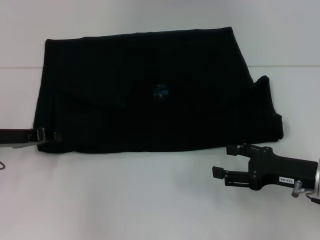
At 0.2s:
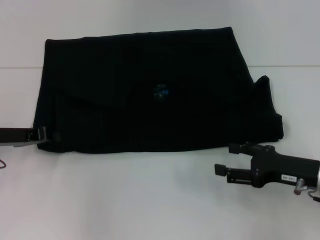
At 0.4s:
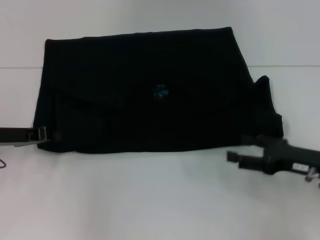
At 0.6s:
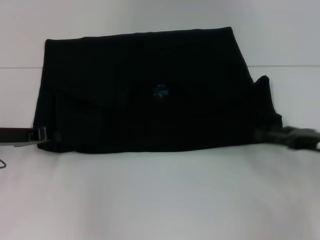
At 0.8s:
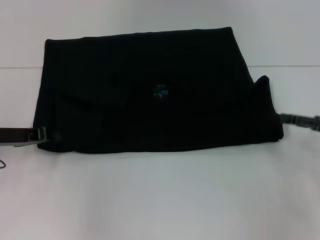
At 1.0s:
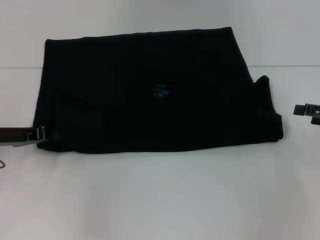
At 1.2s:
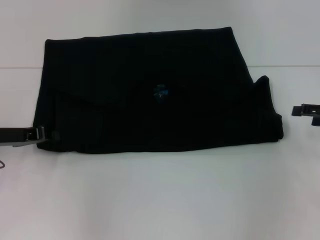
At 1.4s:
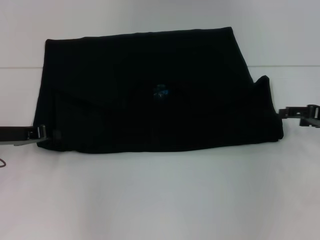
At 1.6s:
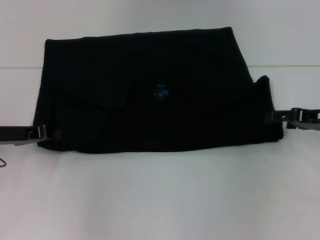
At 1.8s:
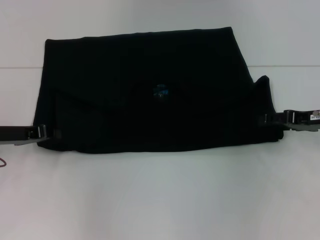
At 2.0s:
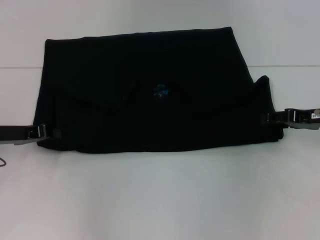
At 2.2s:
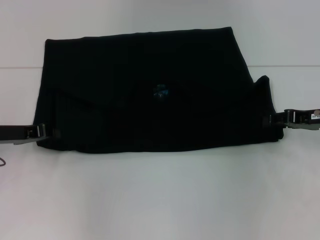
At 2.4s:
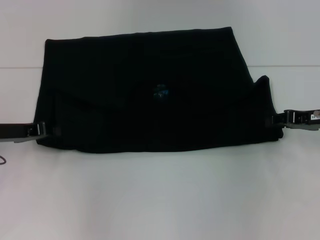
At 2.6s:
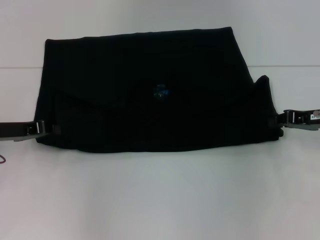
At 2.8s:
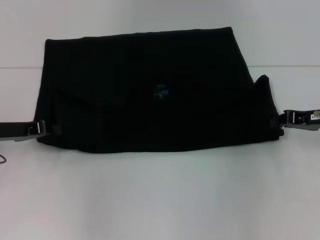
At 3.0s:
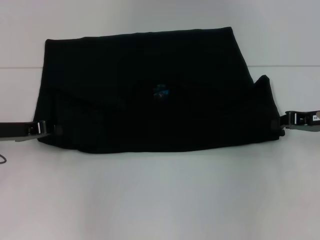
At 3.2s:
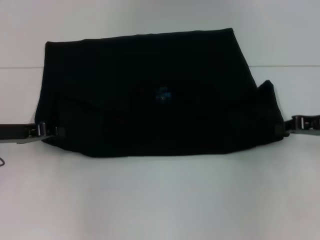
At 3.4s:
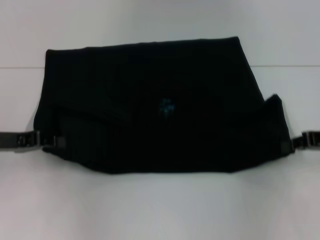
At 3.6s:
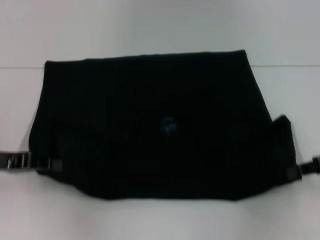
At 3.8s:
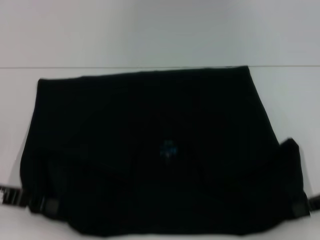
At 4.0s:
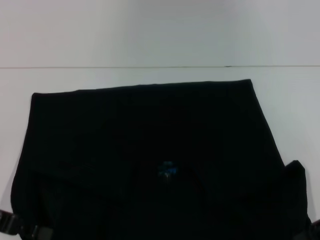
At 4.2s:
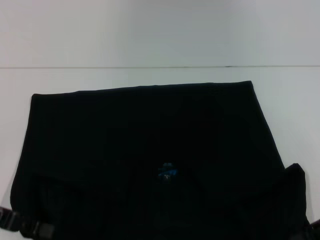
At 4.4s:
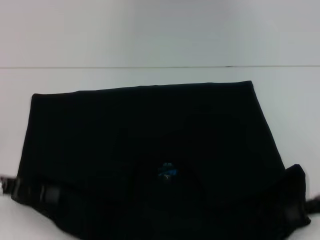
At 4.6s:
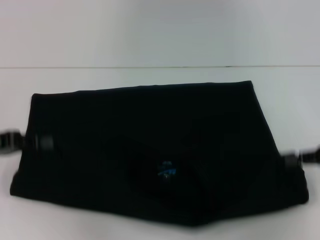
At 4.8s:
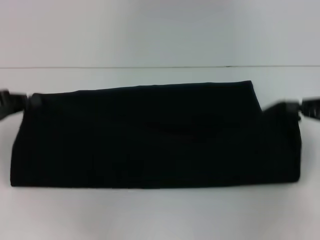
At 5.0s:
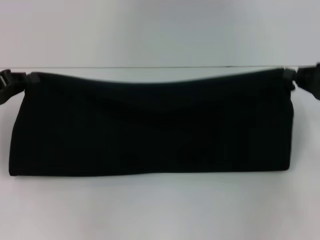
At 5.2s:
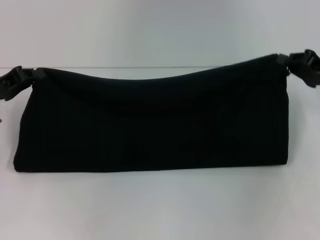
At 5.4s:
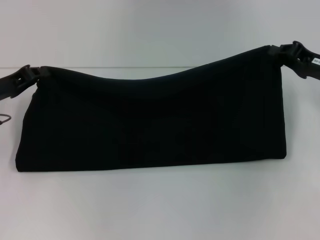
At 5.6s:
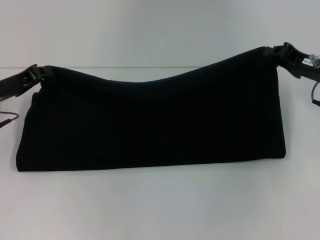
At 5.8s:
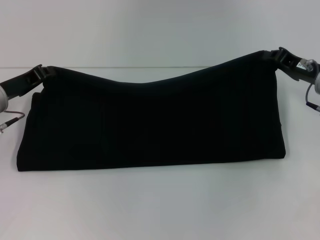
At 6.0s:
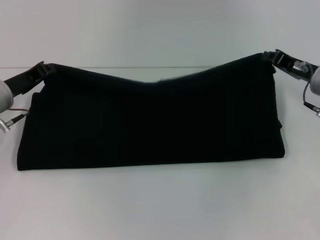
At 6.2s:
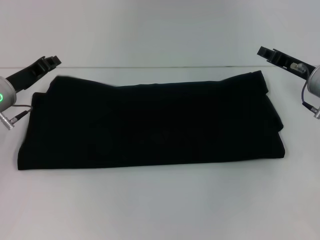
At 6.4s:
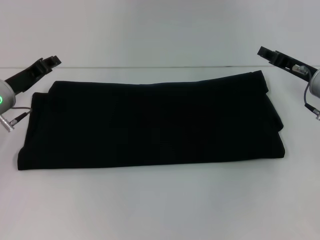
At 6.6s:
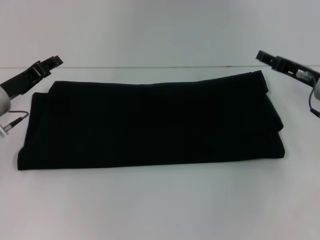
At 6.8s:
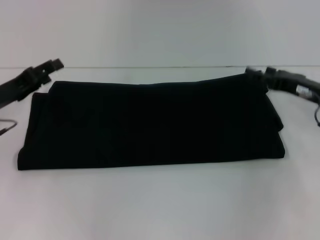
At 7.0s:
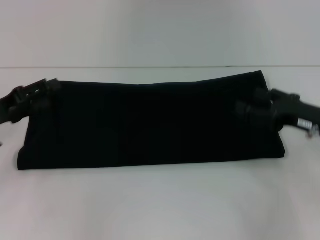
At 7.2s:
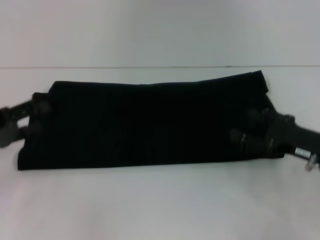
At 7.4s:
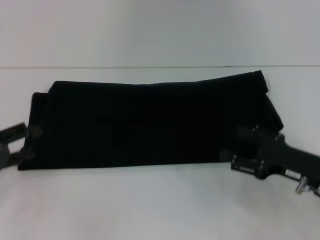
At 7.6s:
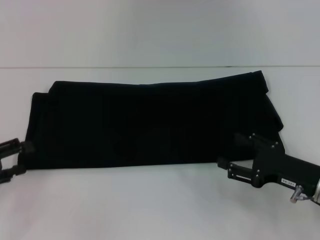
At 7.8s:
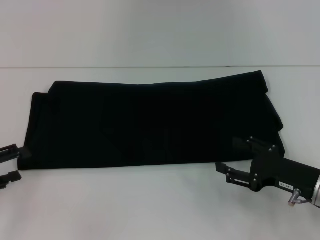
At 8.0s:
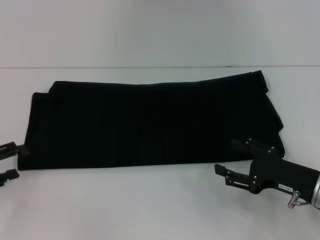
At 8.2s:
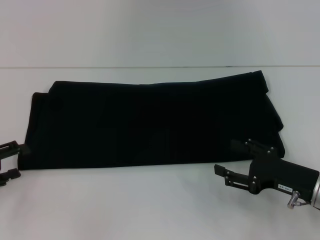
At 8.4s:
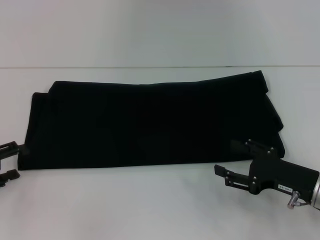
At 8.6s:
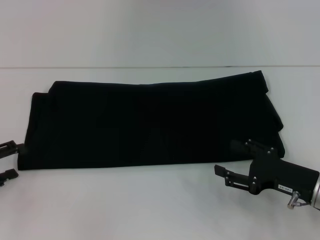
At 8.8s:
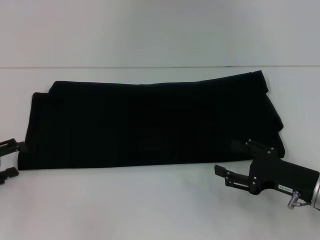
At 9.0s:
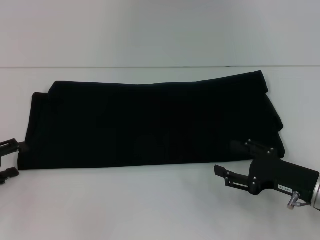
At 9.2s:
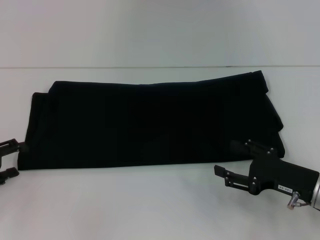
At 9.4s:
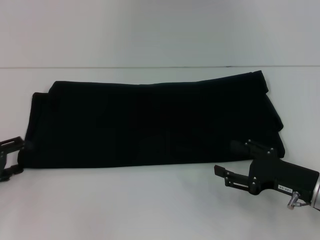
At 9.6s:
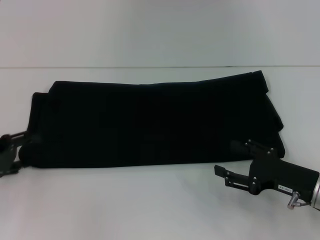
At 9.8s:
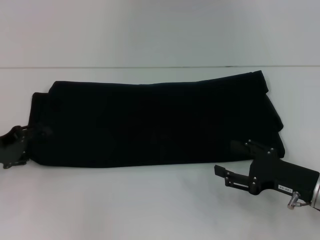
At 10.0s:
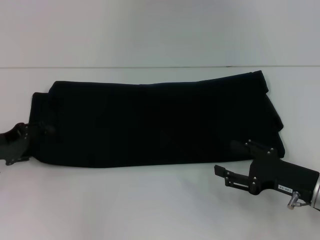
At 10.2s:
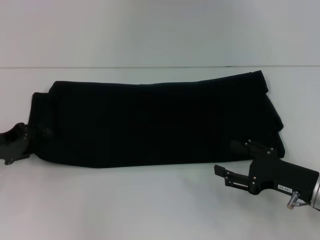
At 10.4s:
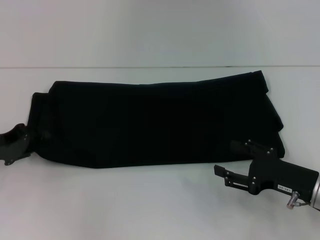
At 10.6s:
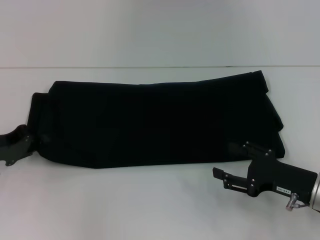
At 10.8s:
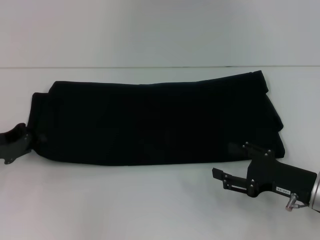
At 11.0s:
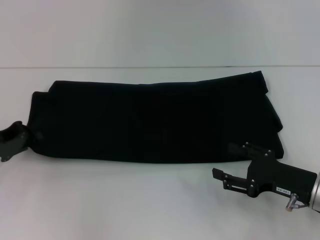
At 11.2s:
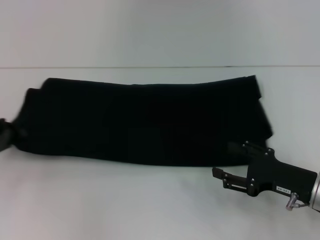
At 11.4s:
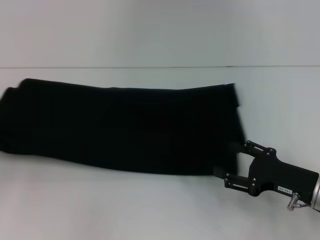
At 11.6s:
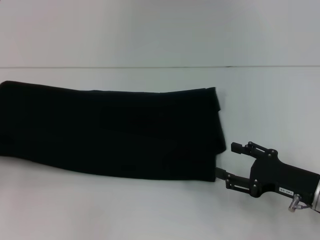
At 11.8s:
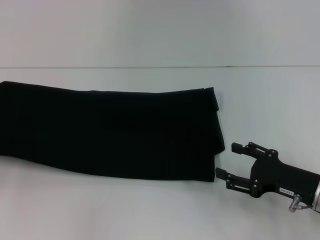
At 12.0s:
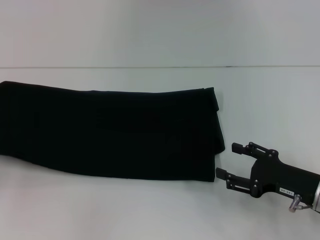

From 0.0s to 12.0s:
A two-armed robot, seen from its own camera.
Step, from 0.0s to 4.0s: Pull the clothes with your left hand.
Step, from 0.0s to 4.0s: Pull the clothes with your right hand.
Step, from 4.2s to 6.6s: Fold the clothes with your right hand.
From 0.0s to 1.6s: The right gripper travels forward, to the right and upward by approximately 10 cm.
From 1.6s to 3.0s: The right gripper closes its fingers.
From 3.0s to 4.4s: The grippers both shift backward by roughly 10 cm.
From 4.4s to 6.0s: The right gripper shifts some 15 cm forward and to the left. The left gripper travels forward by approximately 10 cm.
From 6.0s to 7.6s: The right gripper shifts approximately 15 cm backward and downward, and opens its fingers, while the left gripper heads backward and to the left, covering roughly 15 cm, and opens up.
From 7.6s to 9.0s: The grippers move only a little.
From 9.0s to 10.4s: The left gripper moves about 5 cm.
From 10.4s to 12.0s: The left gripper goes about 10 cm to the left, and closes up.

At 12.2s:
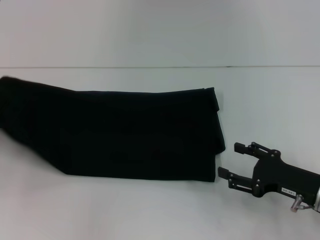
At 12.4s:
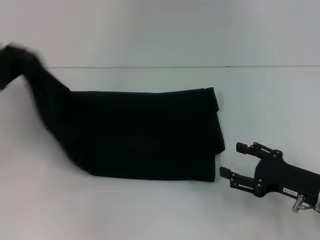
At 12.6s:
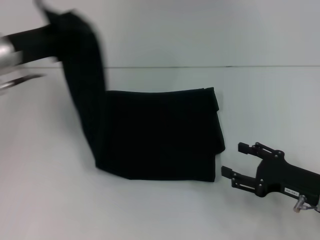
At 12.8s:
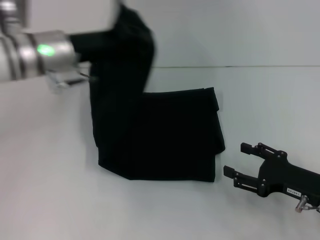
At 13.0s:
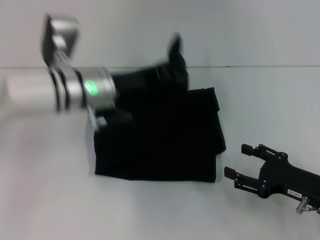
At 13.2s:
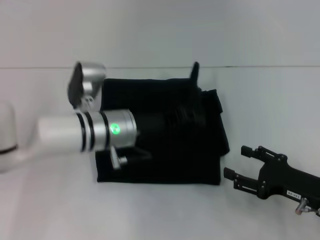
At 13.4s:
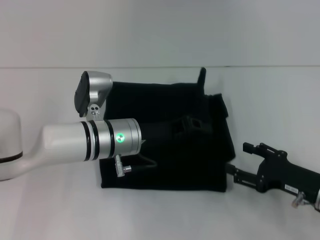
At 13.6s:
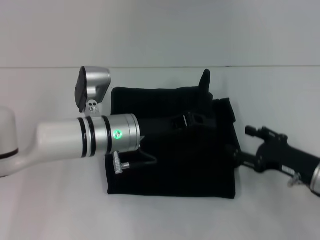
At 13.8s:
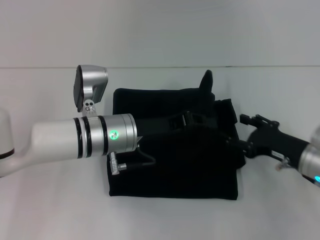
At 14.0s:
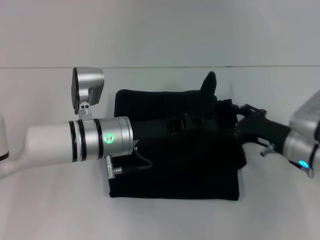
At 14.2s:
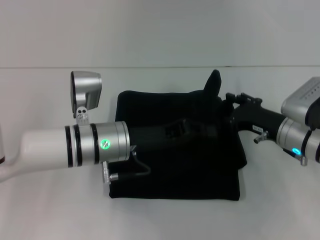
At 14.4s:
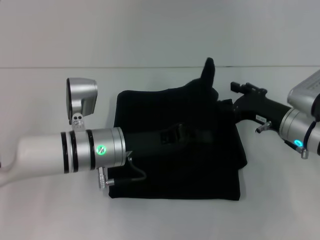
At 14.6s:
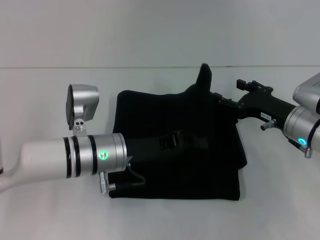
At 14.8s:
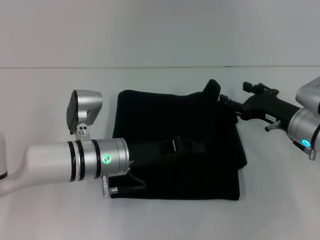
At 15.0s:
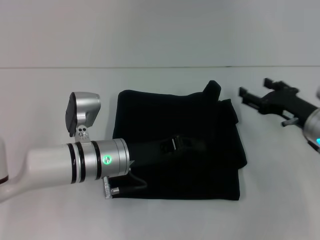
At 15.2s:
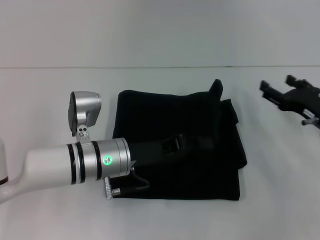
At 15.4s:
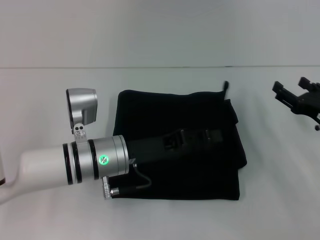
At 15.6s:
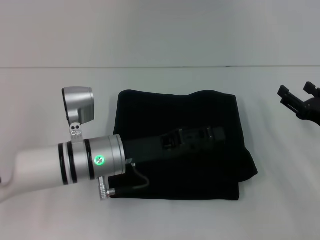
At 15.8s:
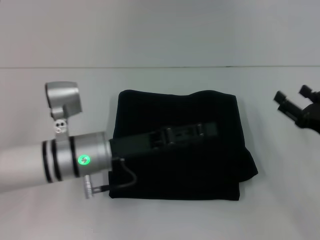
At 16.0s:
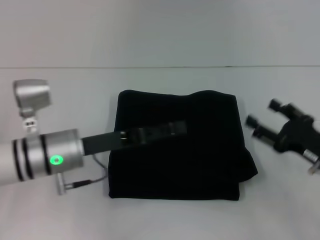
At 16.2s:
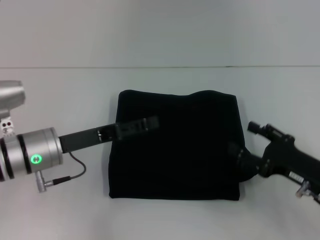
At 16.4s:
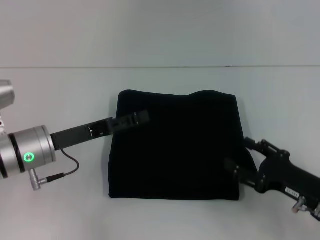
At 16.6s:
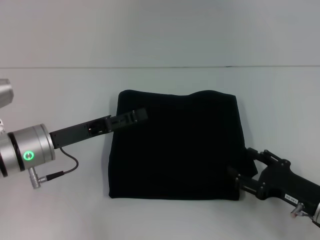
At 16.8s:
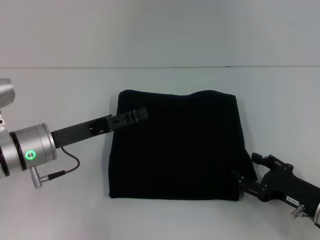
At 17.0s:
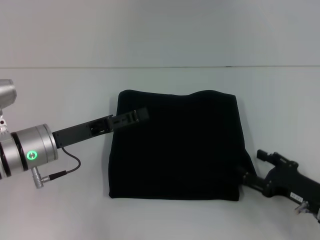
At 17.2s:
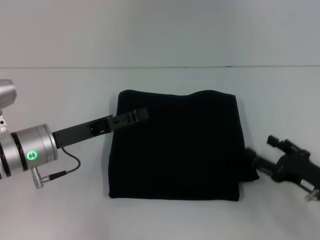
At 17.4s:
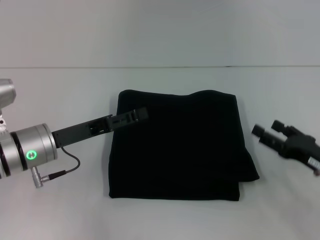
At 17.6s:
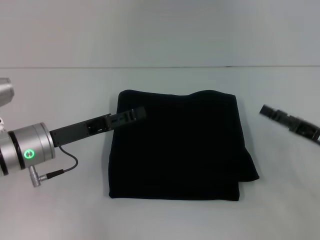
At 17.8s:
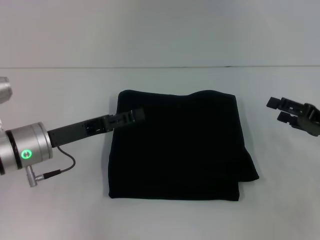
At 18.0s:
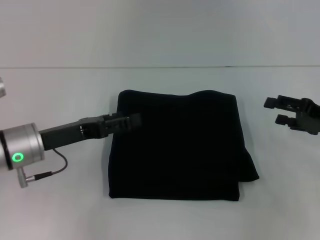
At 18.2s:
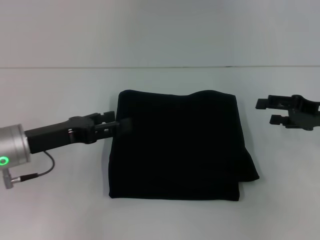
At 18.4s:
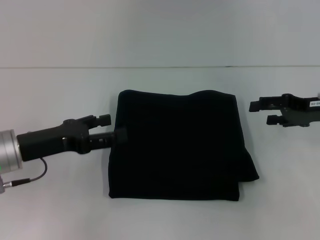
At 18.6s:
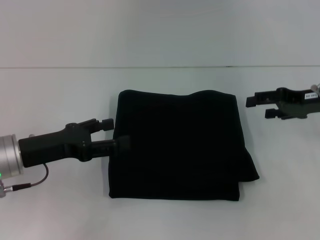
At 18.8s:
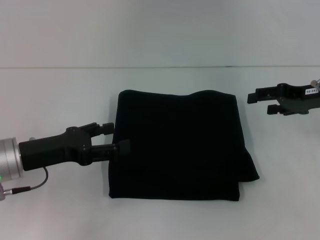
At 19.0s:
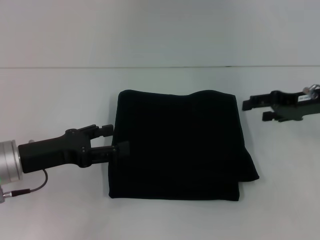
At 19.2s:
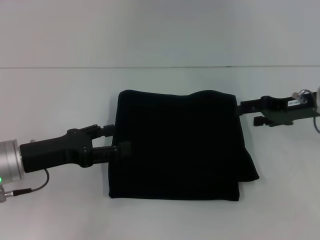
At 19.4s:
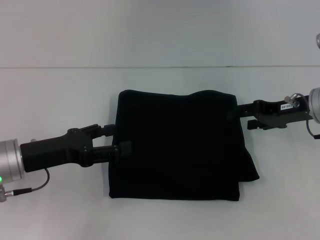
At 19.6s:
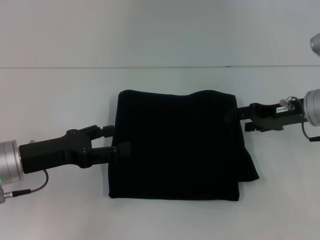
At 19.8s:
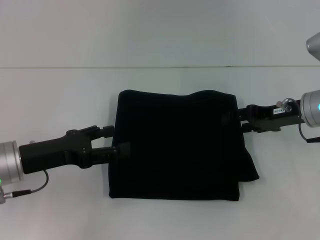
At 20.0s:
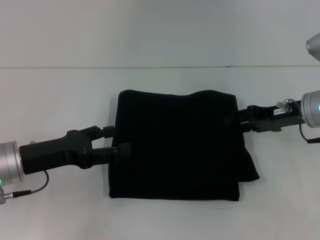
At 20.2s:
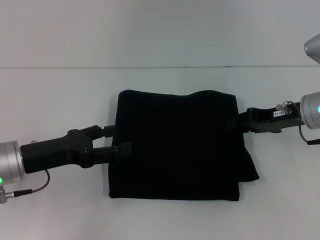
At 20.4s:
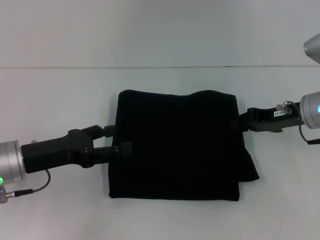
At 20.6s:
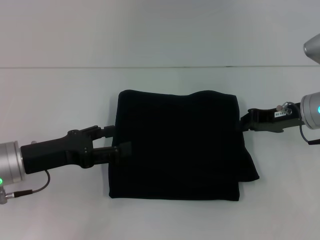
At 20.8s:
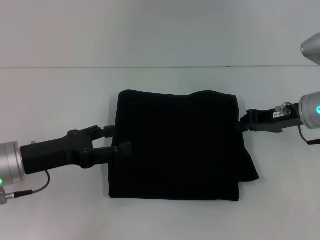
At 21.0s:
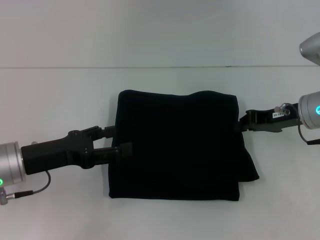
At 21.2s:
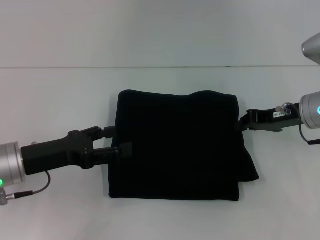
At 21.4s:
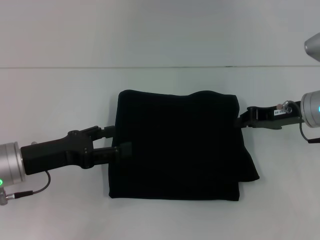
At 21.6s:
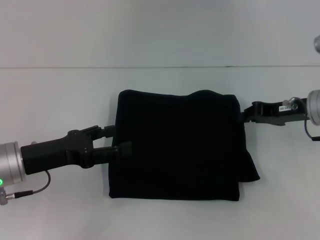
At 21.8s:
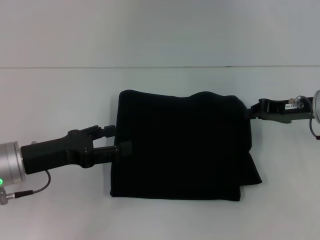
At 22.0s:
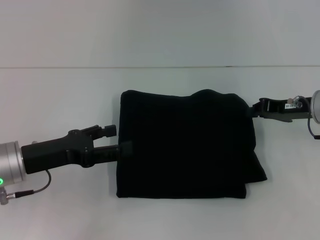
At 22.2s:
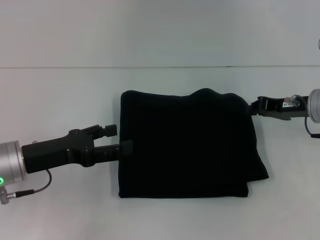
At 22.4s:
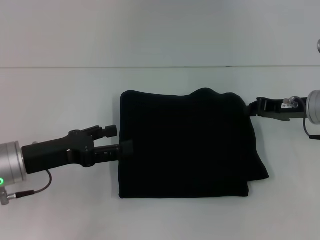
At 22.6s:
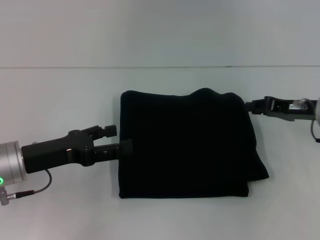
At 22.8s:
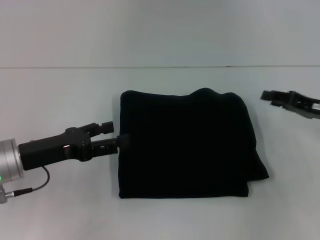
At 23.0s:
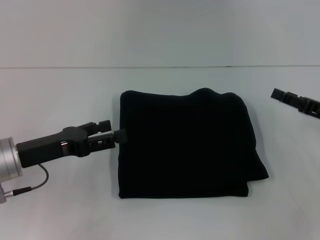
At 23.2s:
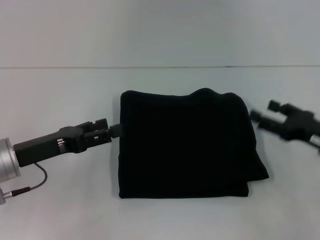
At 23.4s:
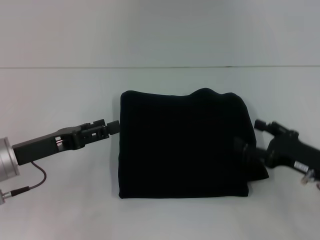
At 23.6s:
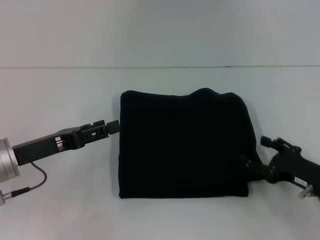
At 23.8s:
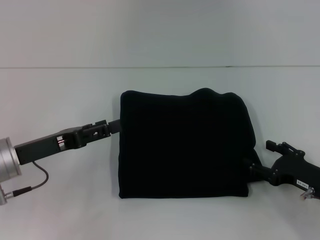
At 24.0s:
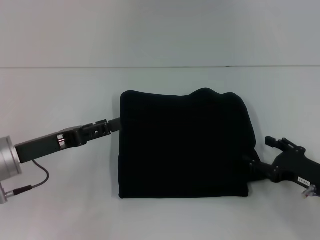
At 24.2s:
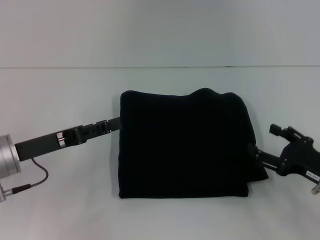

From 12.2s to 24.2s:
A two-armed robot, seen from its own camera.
Step, from 12.2s to 15.8s: Fold the clothes with your left hand.
From 12.2s to 13.8s: The right gripper heads forward, covering some 5 cm, while the left gripper shifts approximately 30 cm to the right.
From 15.2s to 16.6s: The right gripper heads backward, covering approximately 10 cm. Meanwhile the left gripper moves to the left, roughly 10 cm, and opens its fingers.
From 16.6s to 18.2s: The right gripper travels forward, upward and to the right by roughly 15 cm.
From 18.2s to 19.8s: The right gripper is displaced to the left by roughly 5 cm.
From 19.8s to 21.2s: The right gripper closes.
From 21.2s to 22.6s: The grippers make only small movements.
From 22.6s to 24.2s: The right gripper is displaced backward and downward by some 15 cm, and opens its fingers.
